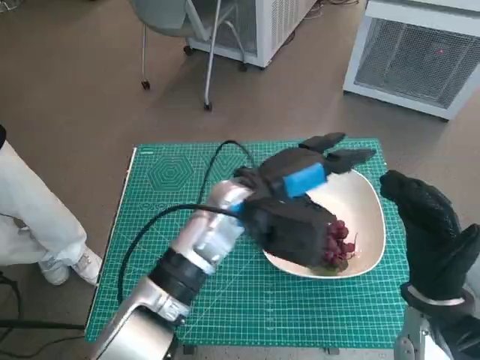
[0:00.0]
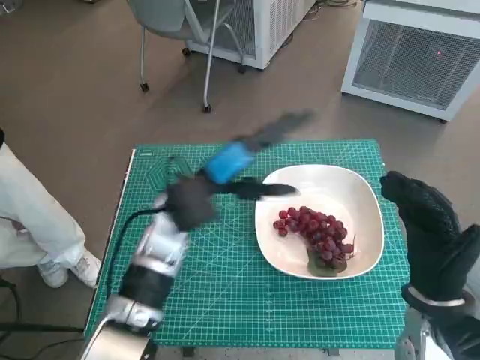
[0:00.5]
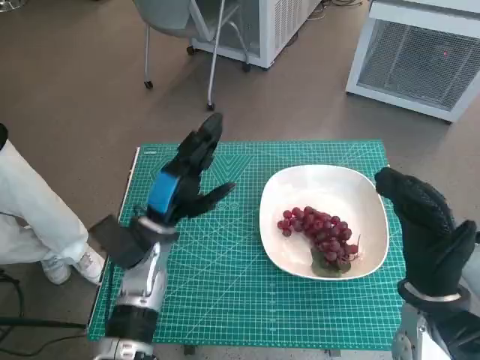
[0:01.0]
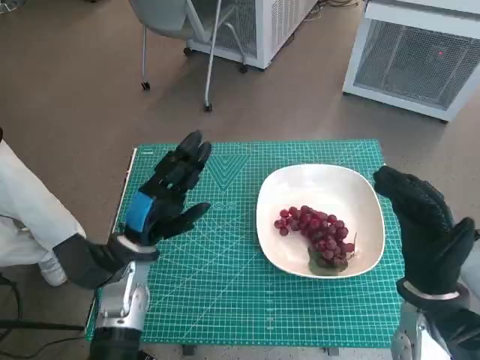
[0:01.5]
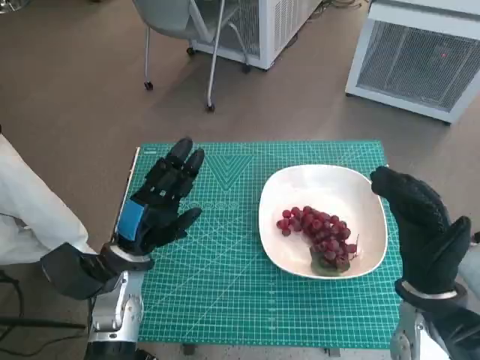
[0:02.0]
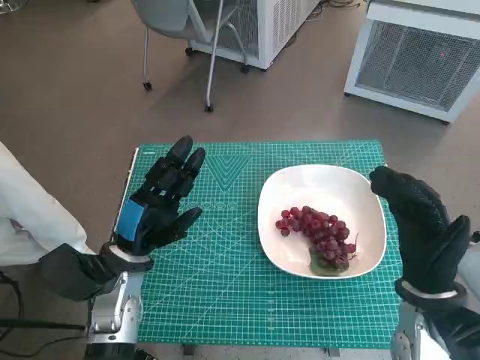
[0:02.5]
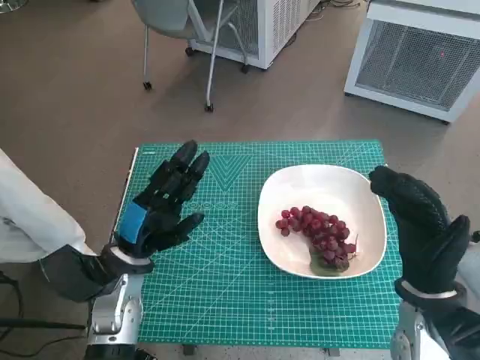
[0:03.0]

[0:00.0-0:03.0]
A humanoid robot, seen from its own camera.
Task of the whole recording: Pick up the grapes and put them on the plate.
0:00.0 to 0:01.5: The left hand is displaced to the left and downward by about 20 cm.
0:01.5 to 0:03.0: There are only small adjustments of the hands.

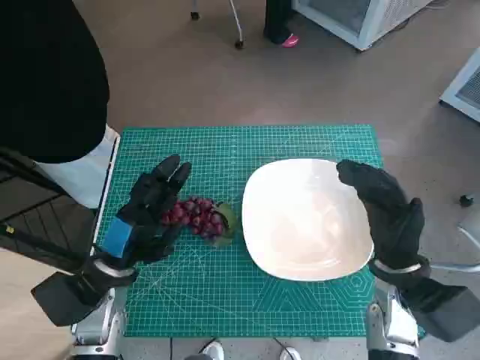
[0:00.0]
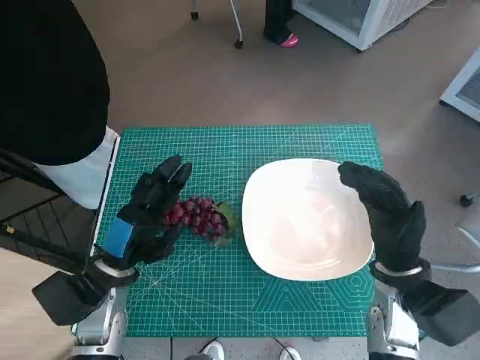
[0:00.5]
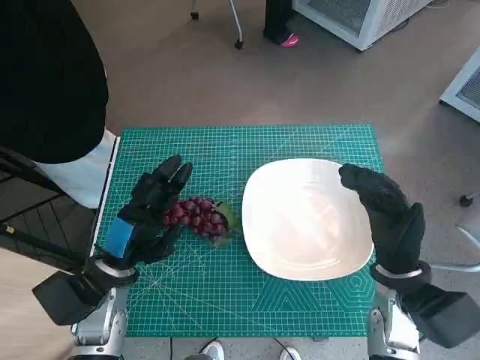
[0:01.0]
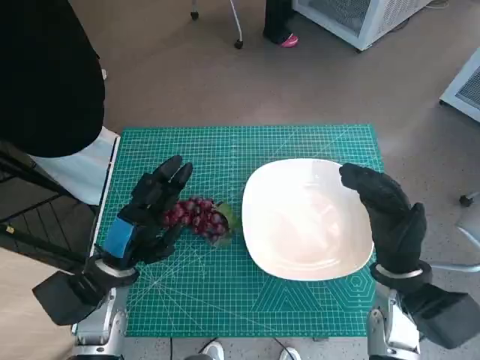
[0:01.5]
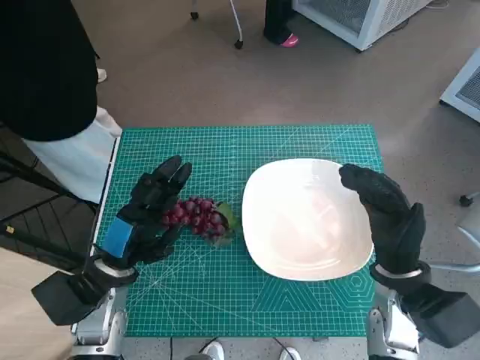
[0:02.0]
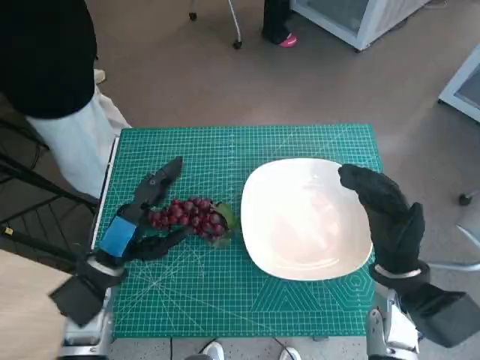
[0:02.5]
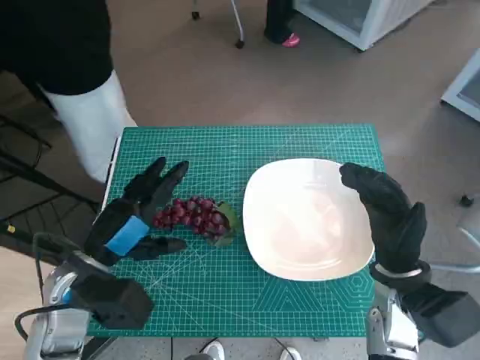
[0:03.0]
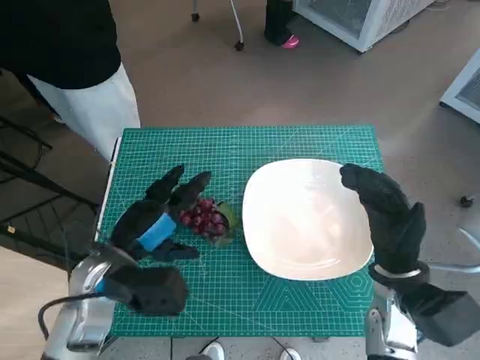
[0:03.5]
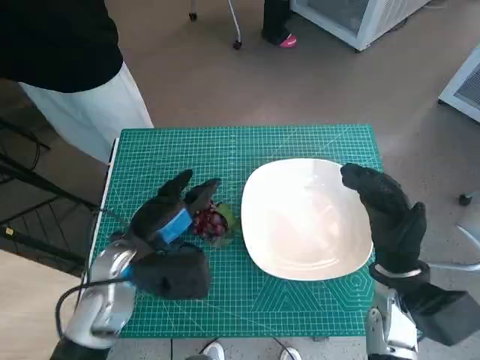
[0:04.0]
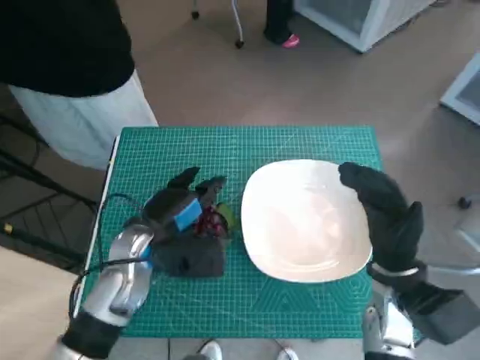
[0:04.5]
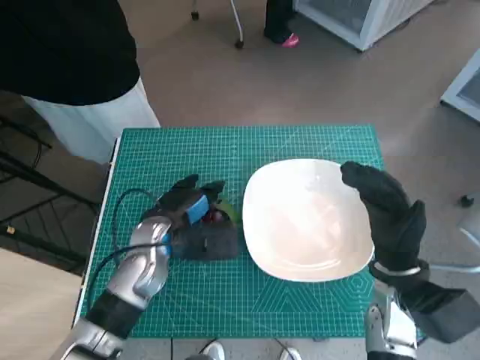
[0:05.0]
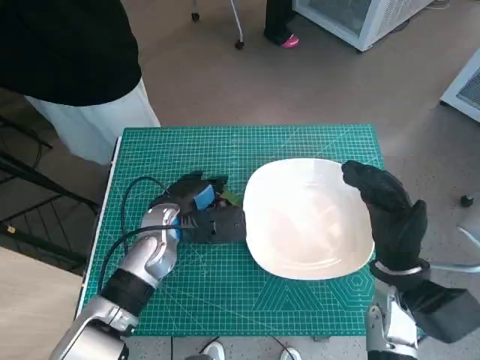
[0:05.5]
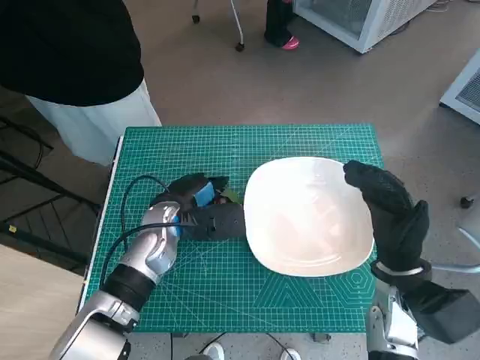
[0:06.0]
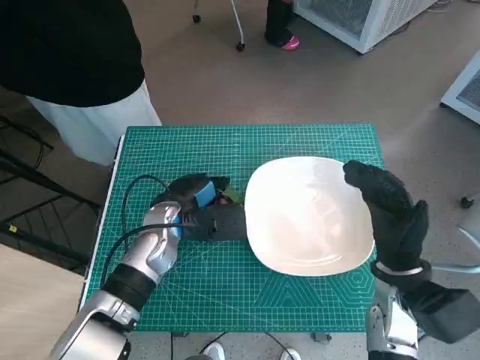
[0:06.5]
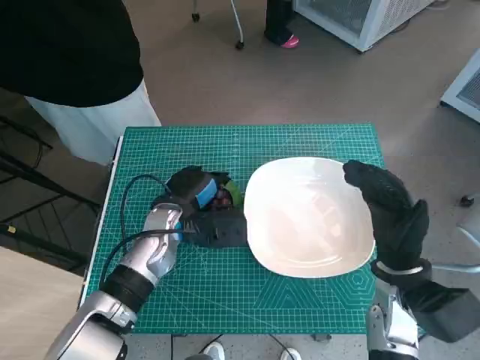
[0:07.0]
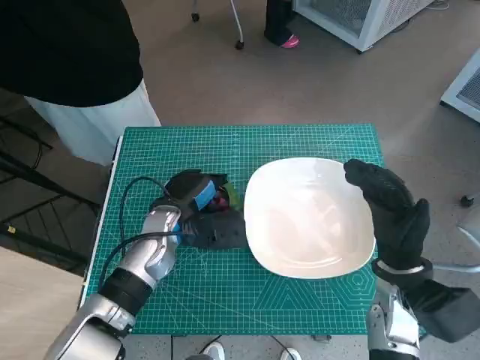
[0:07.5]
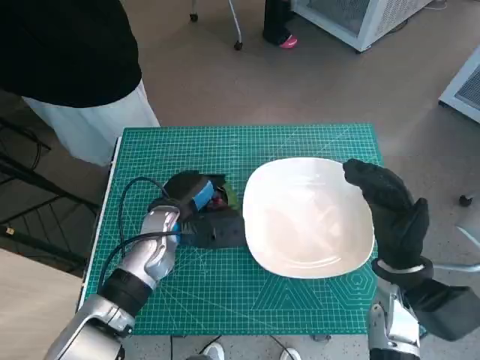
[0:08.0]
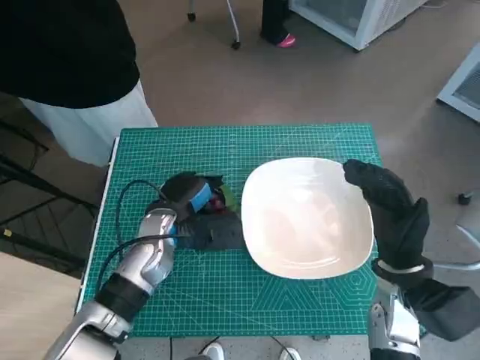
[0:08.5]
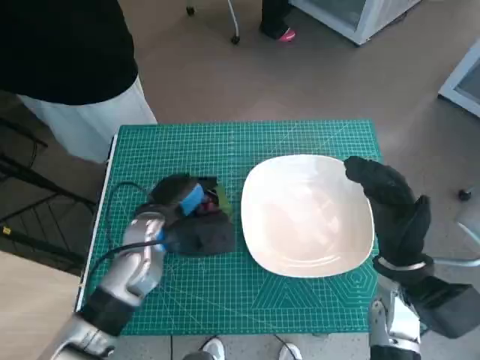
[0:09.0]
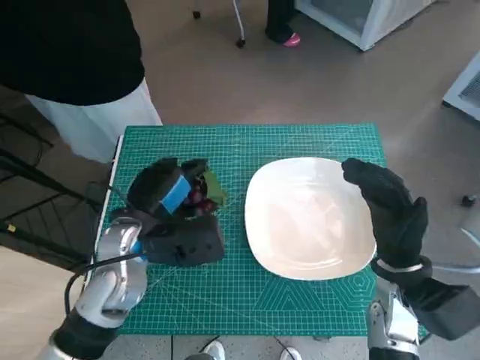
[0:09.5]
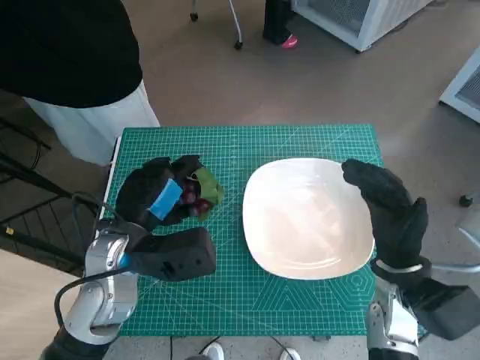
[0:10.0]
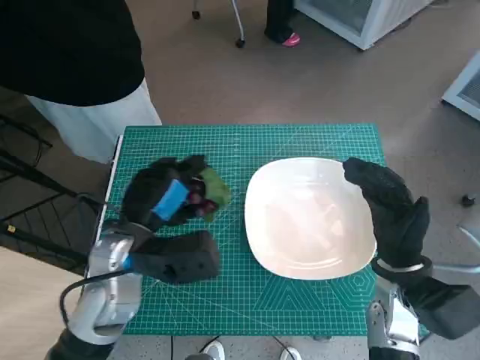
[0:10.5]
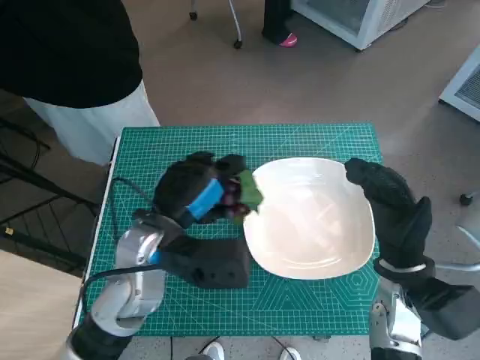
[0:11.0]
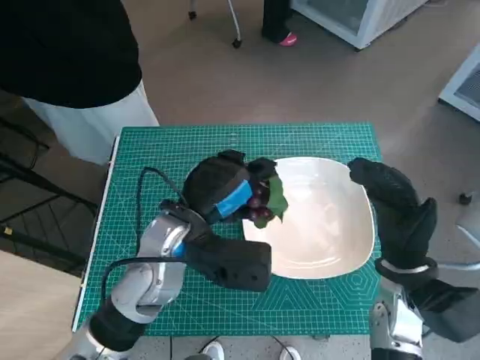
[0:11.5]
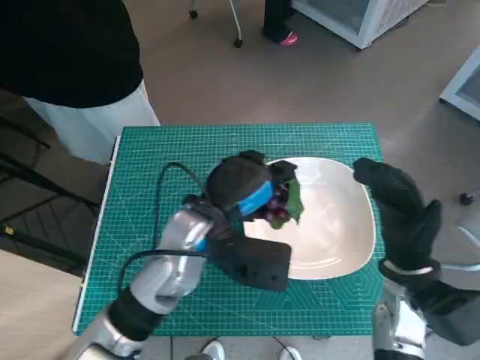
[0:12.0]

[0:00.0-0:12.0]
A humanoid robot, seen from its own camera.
Task of the whole recording: Pick up the grapes and put them on the plate.
Step, 0:00.0 to 0:08.5: Grasp the grapes with left hand.
0:02.0 to 0:04.0: The left hand changes place by roughly 5 cm.
0:04.0 to 0:06.0: The left hand is displaced forward by about 10 cm.
0:06.0 to 0:08.0: There are only small adjustments of the hands.
0:08.0 to 0:10.0: The left hand is displaced upward and backward by roughly 10 cm.
0:10.0 to 0:12.0: The left hand heads to the right, covering roughly 10 cm.

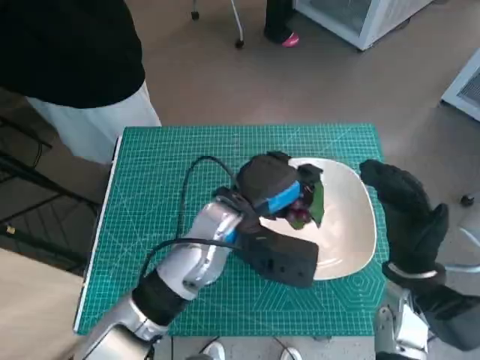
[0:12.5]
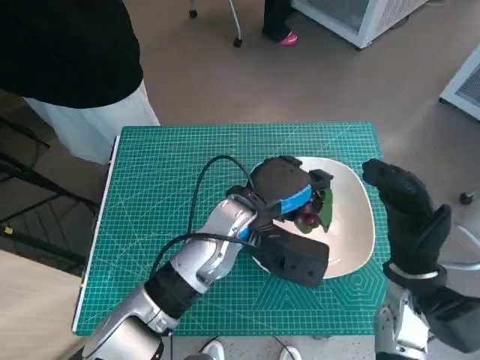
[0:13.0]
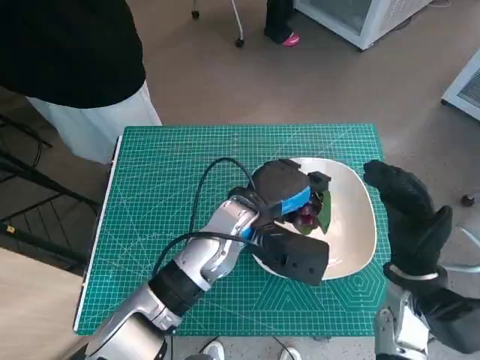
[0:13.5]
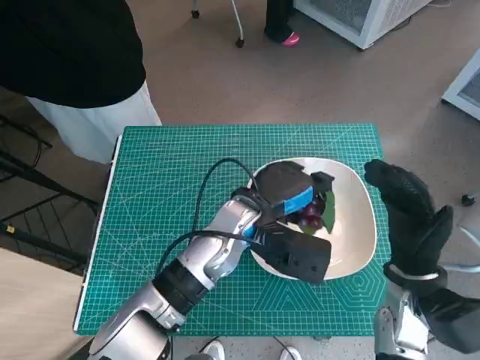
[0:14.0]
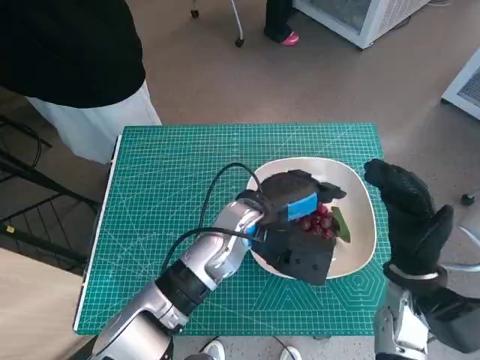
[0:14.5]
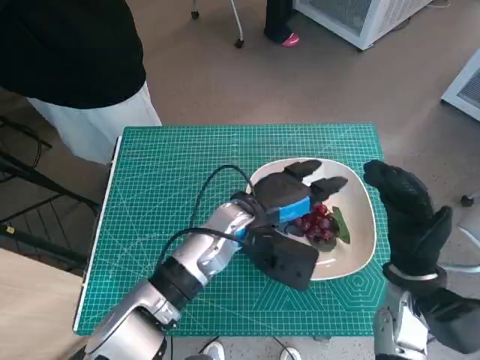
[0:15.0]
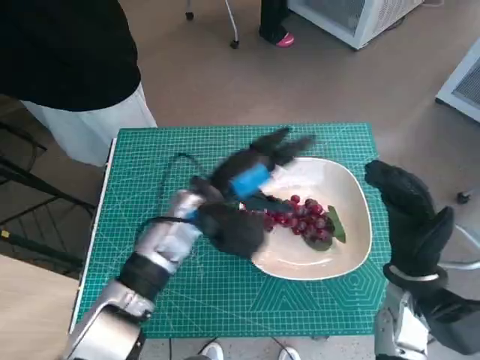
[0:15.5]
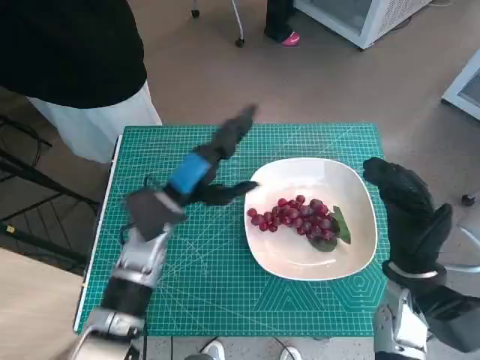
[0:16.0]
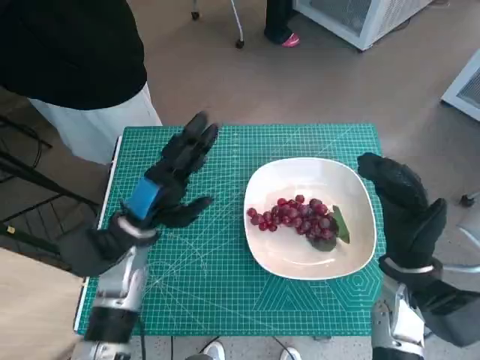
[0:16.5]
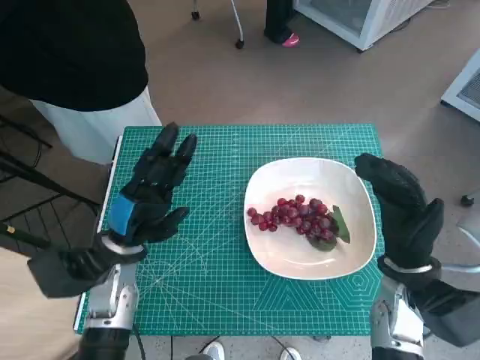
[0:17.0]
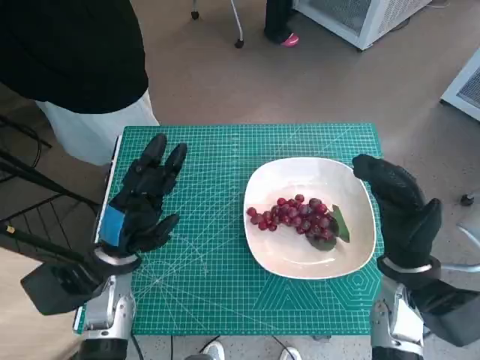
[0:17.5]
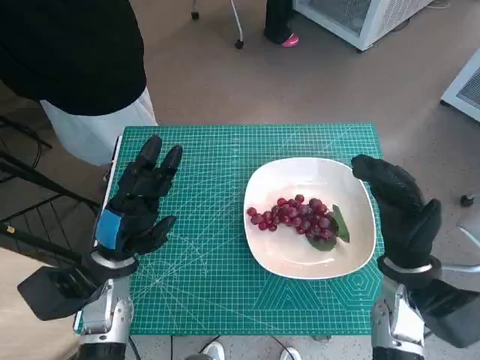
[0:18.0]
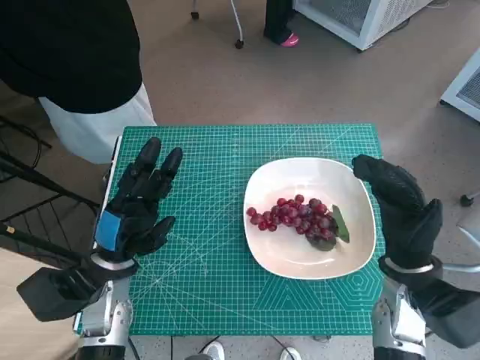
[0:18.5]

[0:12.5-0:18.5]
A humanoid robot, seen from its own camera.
Task of the whole recording: Pick up the grapes and put them on the plate.
Step, 0:12.5 to 0:14.5: Place the grapes in the plate with left hand.
0:12.5 to 0:14.5: The hands make only small movements.
0:14.5 to 0:16.5: The left hand heads to the left, covering approximately 15 cm.
0:16.5 to 0:18.5: The left hand ends up approximately 5 cm from where it was.

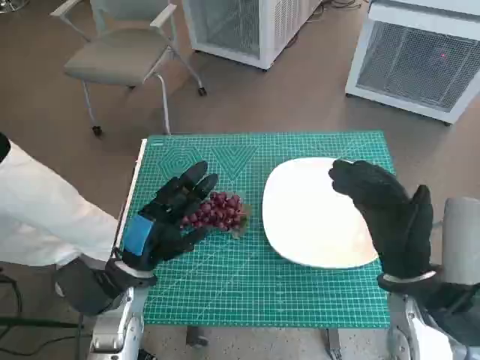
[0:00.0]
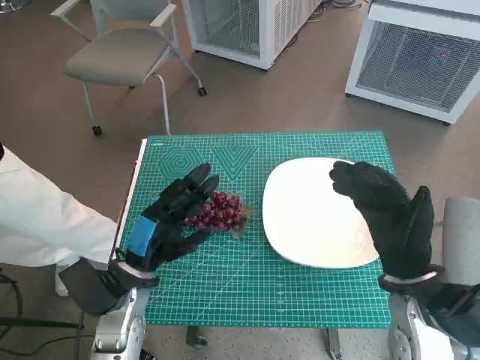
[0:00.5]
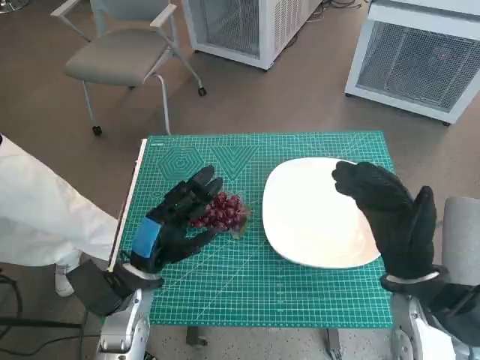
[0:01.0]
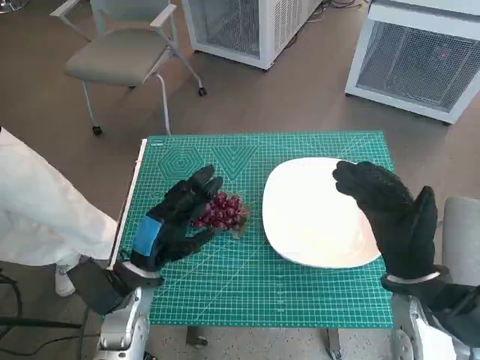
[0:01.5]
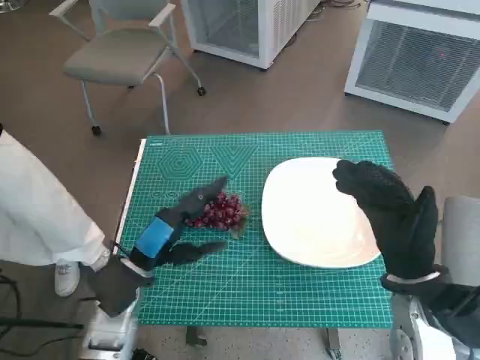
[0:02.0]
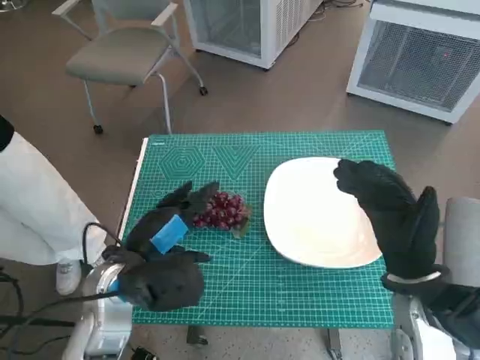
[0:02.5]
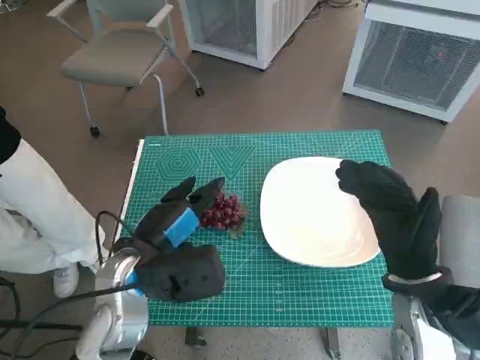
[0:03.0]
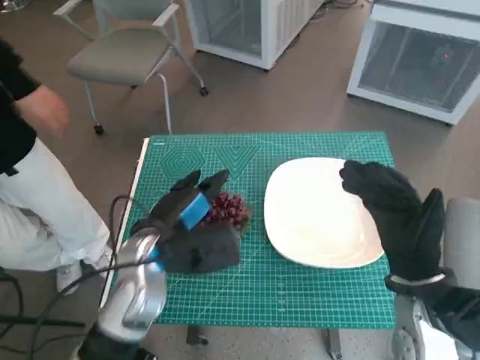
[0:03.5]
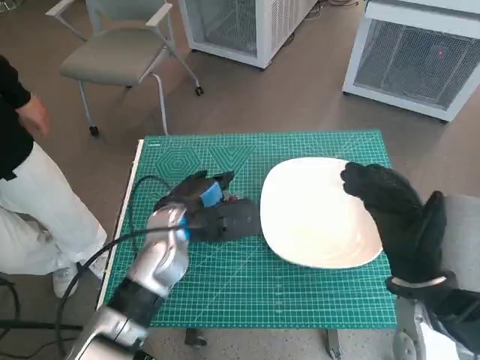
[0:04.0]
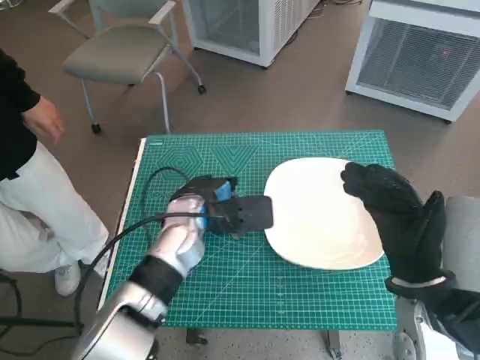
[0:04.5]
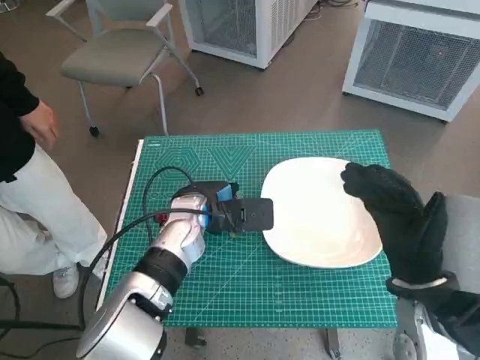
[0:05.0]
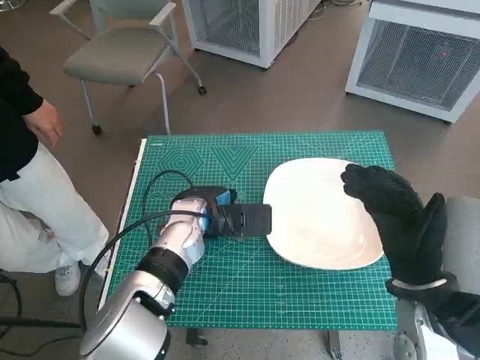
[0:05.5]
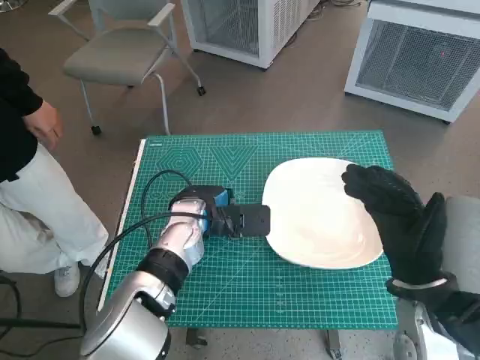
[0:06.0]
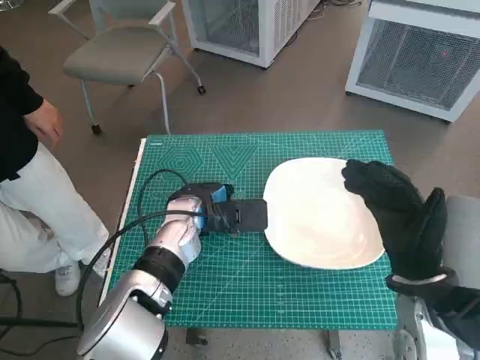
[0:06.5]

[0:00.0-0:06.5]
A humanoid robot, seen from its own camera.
Task of the whole recording: Pick up the grapes and put them on the plate.
Step, 0:00.0 to 0:05.5: Grasp the grapes with left hand.
0:02.0 to 0:04.5: The left hand travels forward and to the right by some 15 cm.
0:04.5 to 0:06.5: The hands make only small movements.
